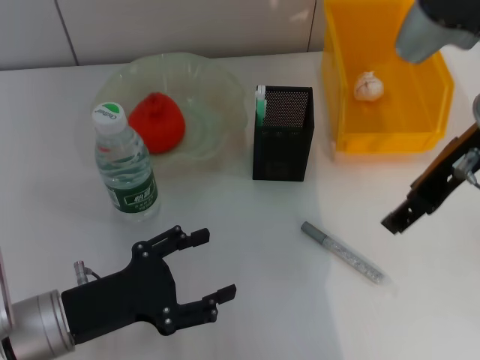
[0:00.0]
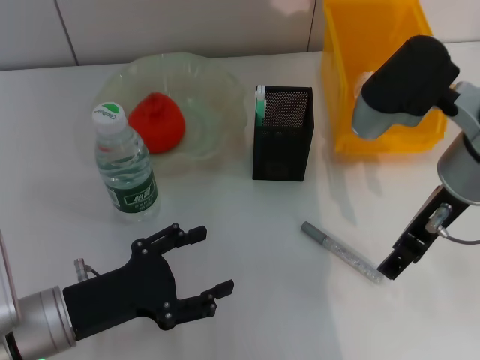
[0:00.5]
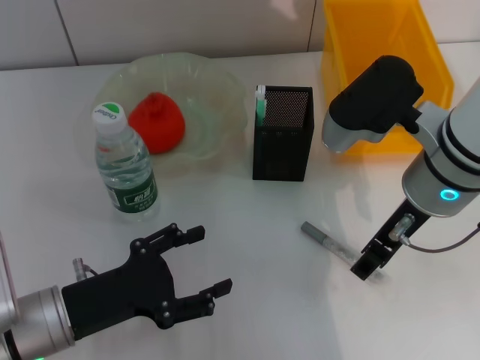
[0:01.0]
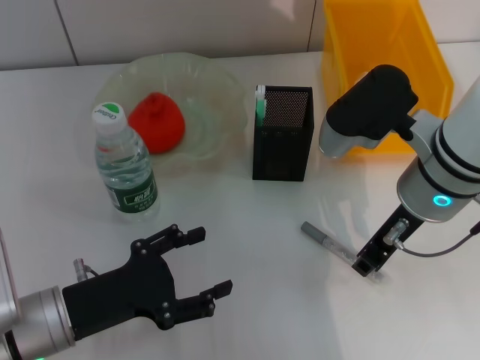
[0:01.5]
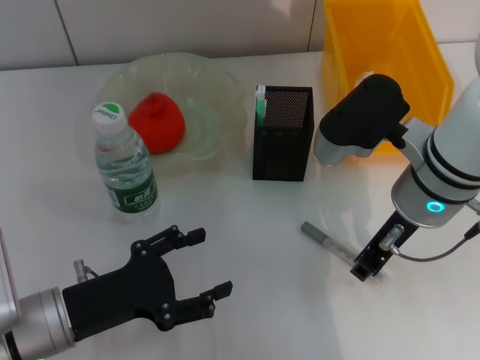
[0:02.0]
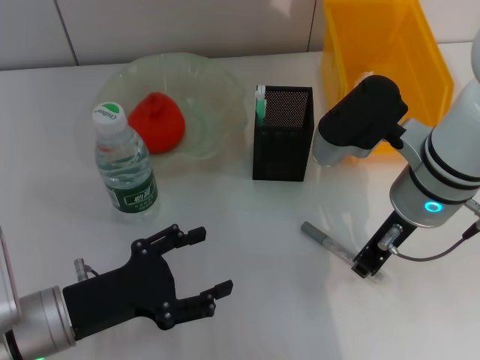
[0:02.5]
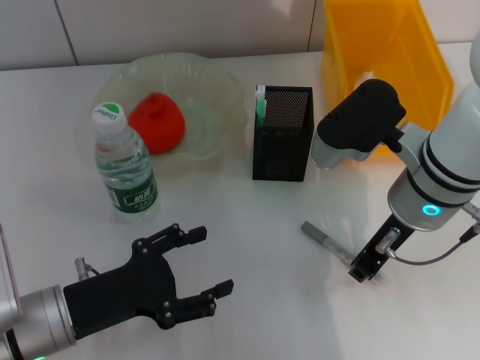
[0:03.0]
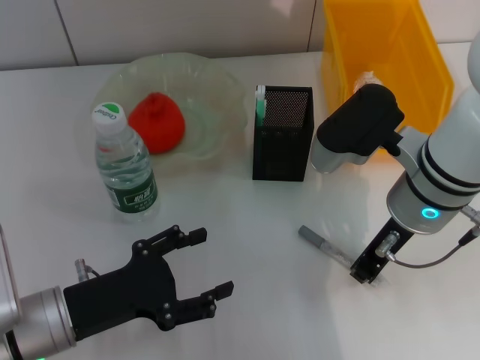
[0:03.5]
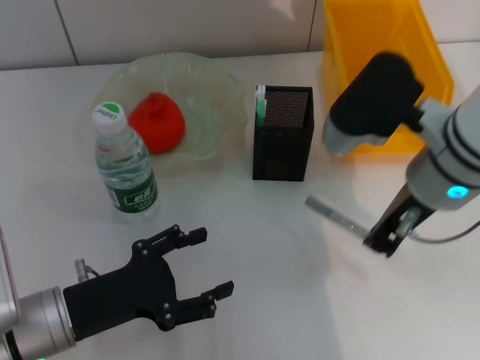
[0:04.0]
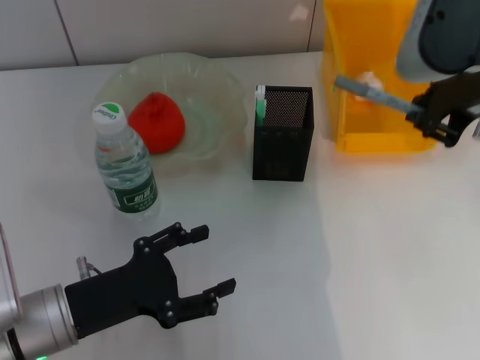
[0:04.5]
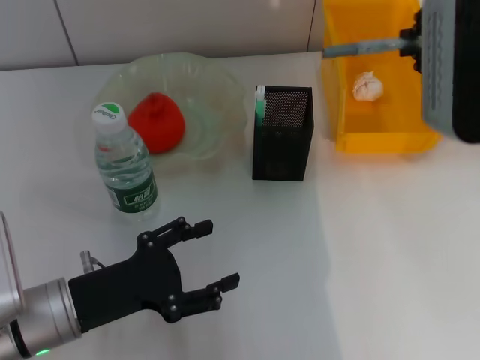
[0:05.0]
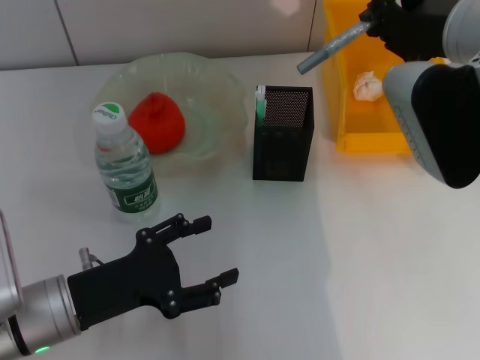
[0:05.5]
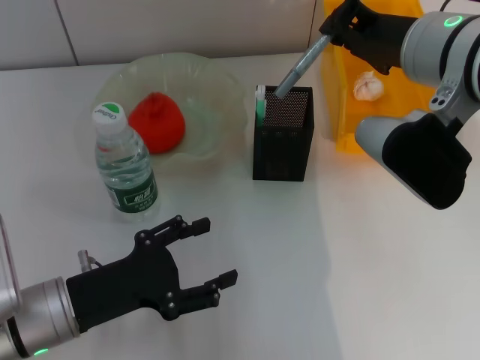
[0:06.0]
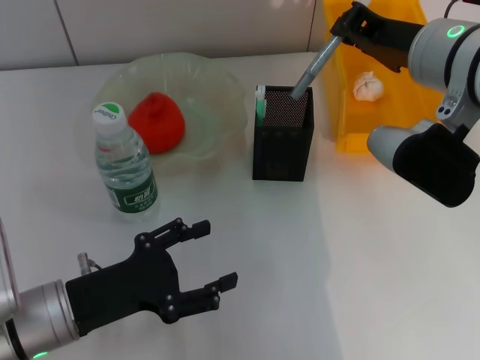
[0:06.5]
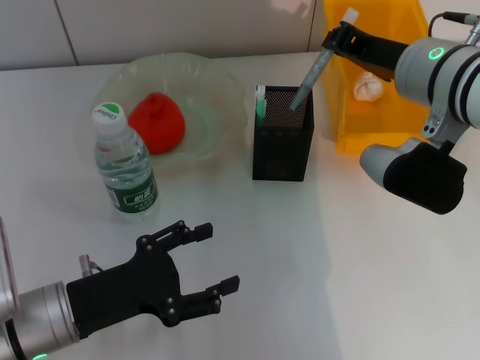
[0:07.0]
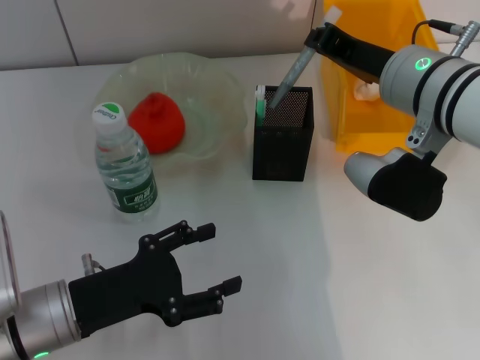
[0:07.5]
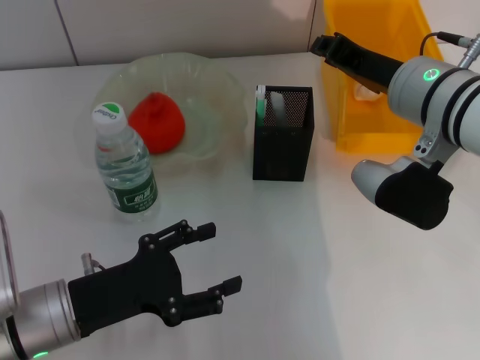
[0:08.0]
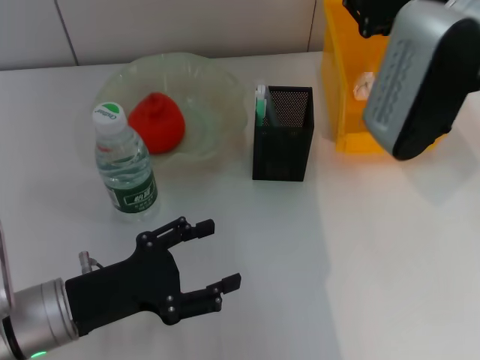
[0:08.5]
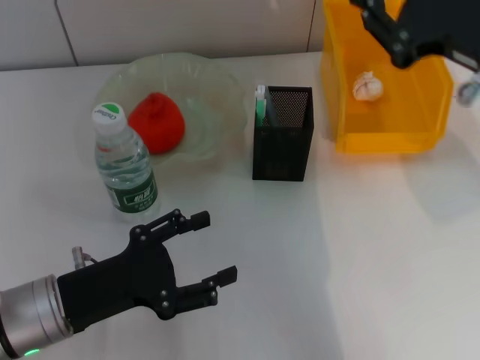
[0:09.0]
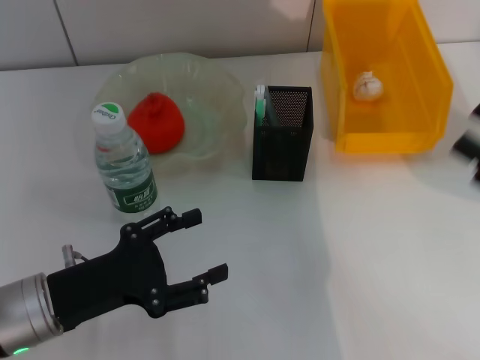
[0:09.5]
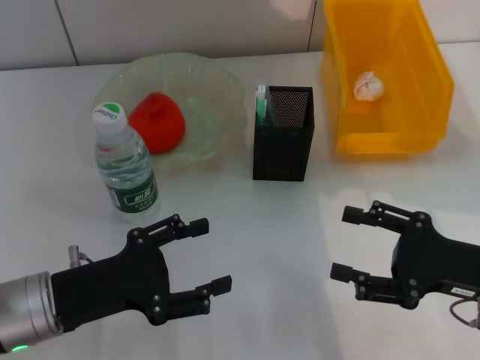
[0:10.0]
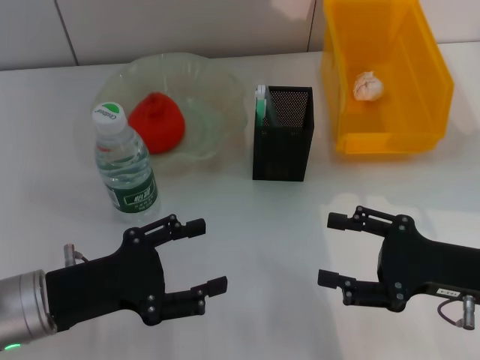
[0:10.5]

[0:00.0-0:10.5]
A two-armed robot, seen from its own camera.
Step, 0:00.0 to 0:03.5: Grab the gray glue with the right hand.
Step, 0:04.0 to 0:08.0: Place the gray glue into the pen holder with the right hand.
0:00.0 to 0:02.0: The right gripper travels downward by approximately 10 cm, and closes up.
0:02.0 to 0:04.0: The grippers stay close to where they were, moving slightly.
0:04.0 to 0:06.5: The right gripper moves some 10 cm upward and comes back.
0:08.5 to 0:10.5: The right gripper moves downward, backward and to the right, about 20 cm, and opens its fingers.
